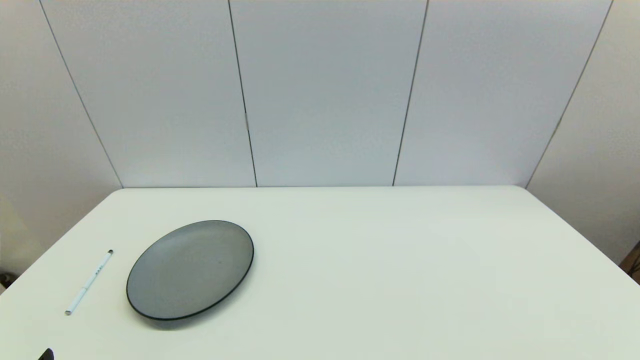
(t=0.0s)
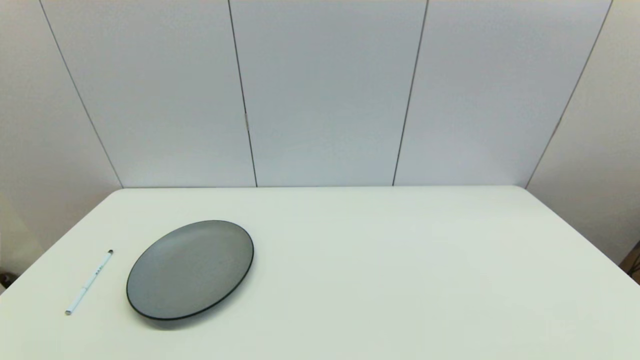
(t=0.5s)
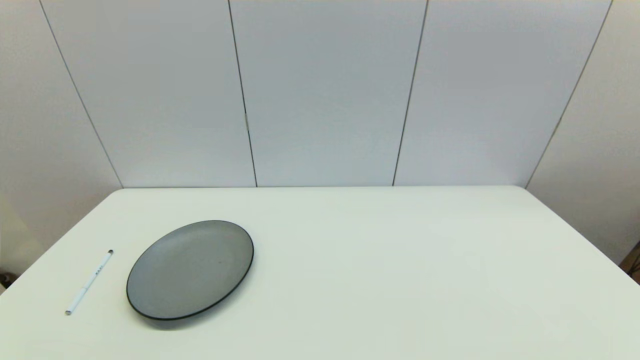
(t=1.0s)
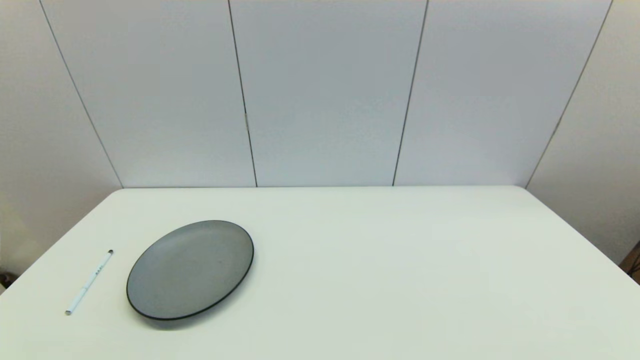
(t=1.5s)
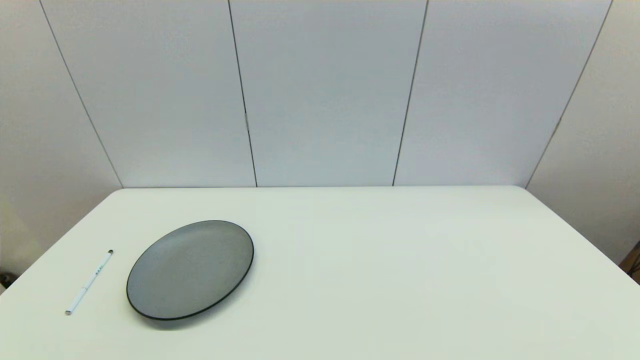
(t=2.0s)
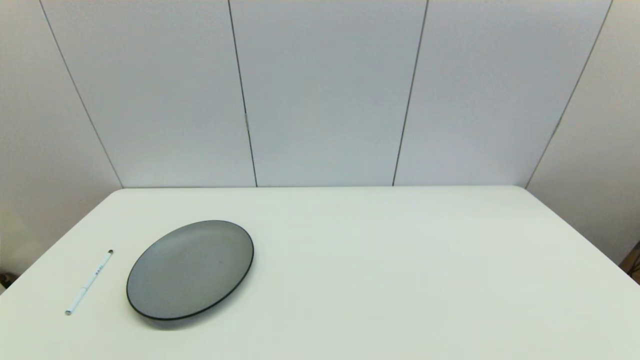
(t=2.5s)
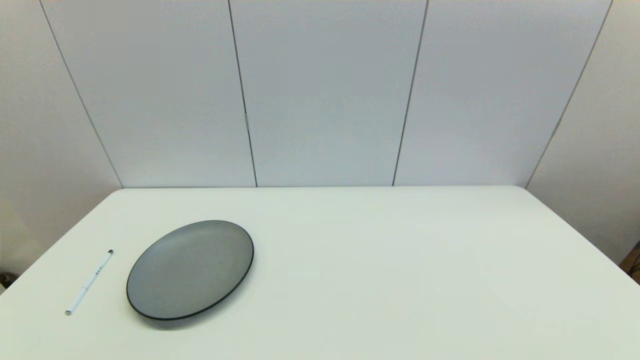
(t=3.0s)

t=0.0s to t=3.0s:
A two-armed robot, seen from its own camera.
Task of the whole recording: put the pen in the designated position.
t=1.5s to t=3.0s: Neither gripper changes place.
